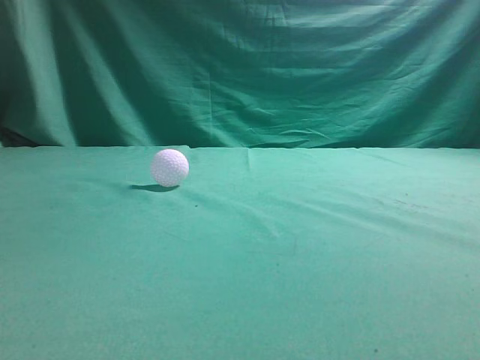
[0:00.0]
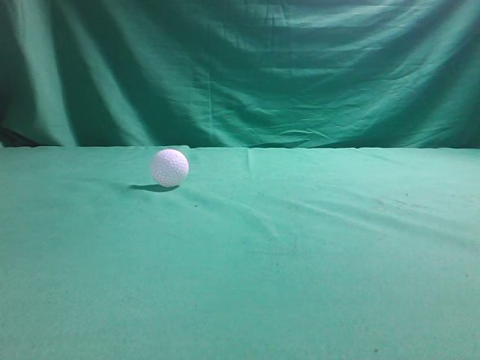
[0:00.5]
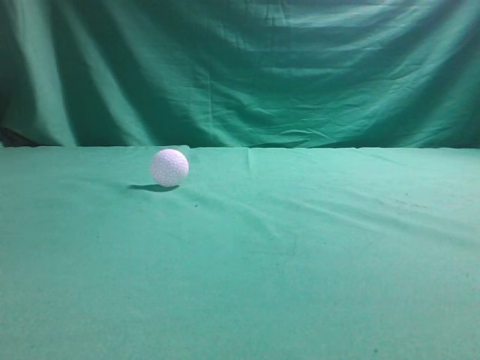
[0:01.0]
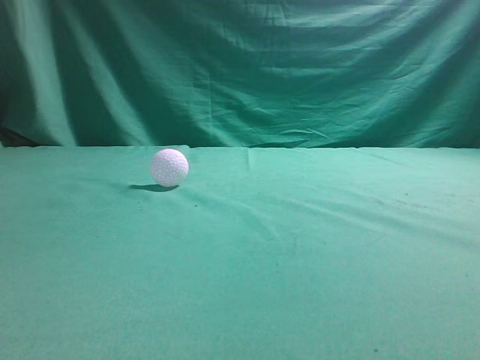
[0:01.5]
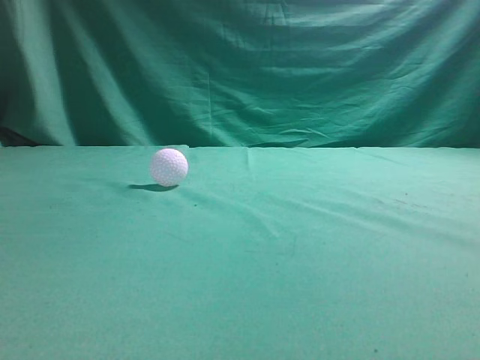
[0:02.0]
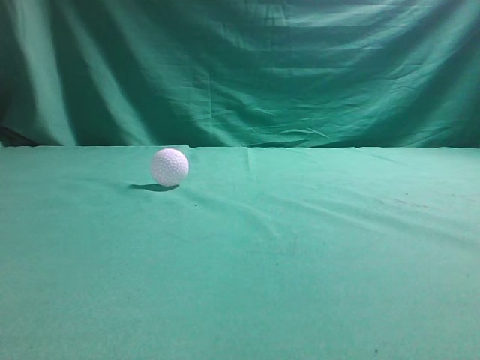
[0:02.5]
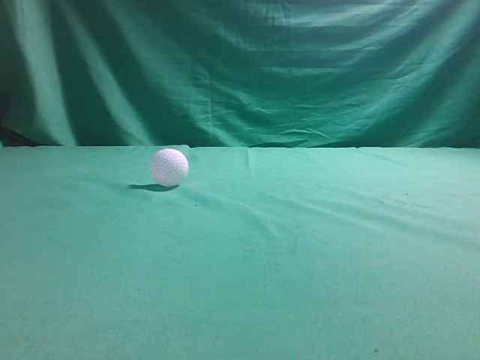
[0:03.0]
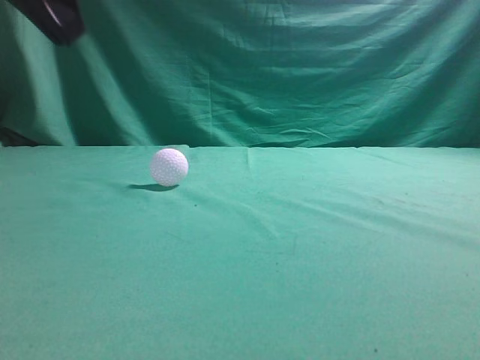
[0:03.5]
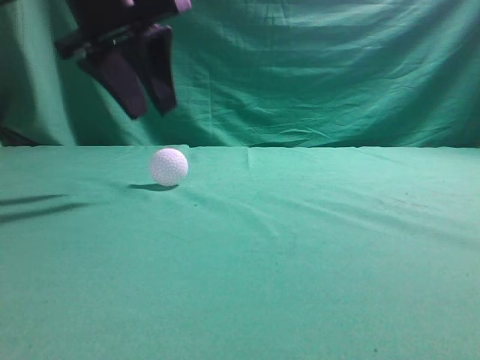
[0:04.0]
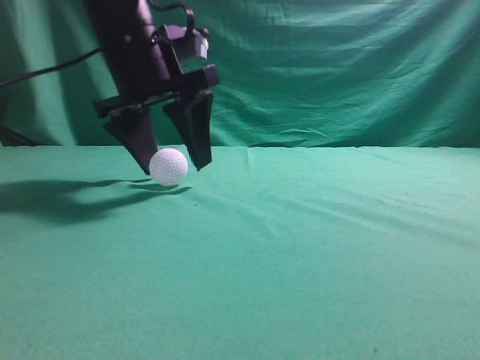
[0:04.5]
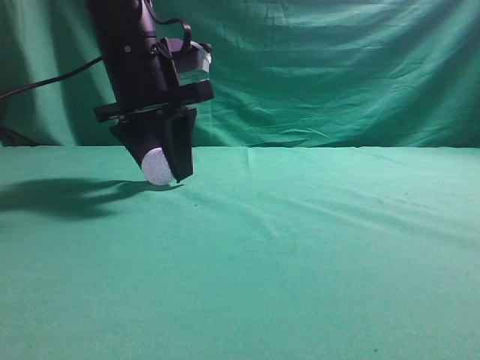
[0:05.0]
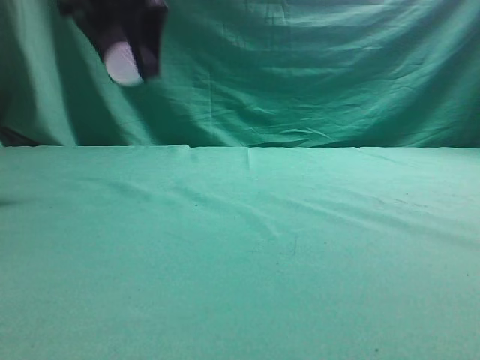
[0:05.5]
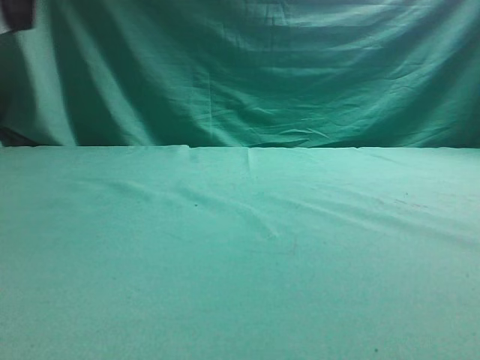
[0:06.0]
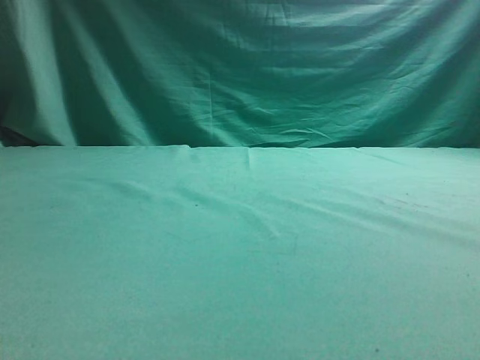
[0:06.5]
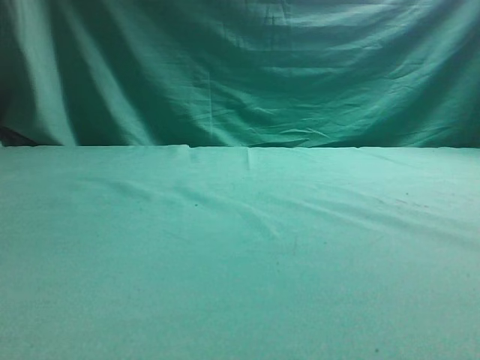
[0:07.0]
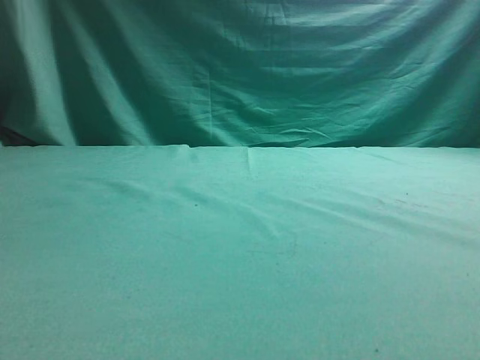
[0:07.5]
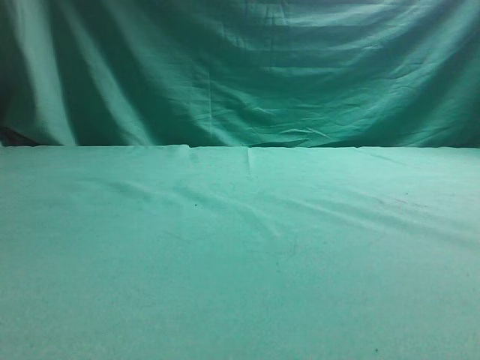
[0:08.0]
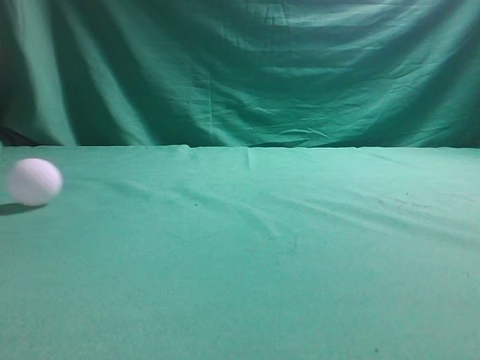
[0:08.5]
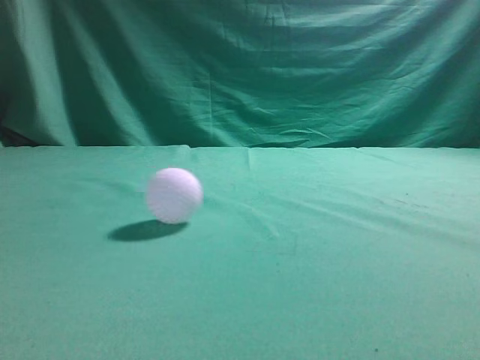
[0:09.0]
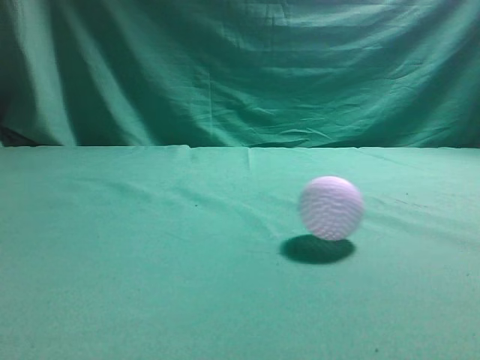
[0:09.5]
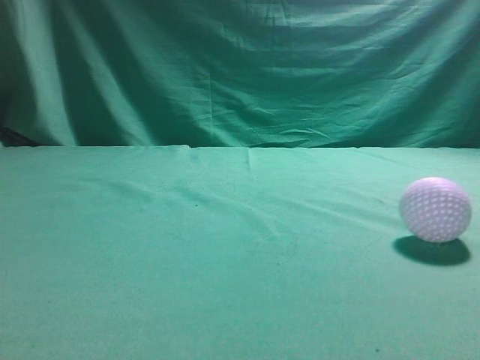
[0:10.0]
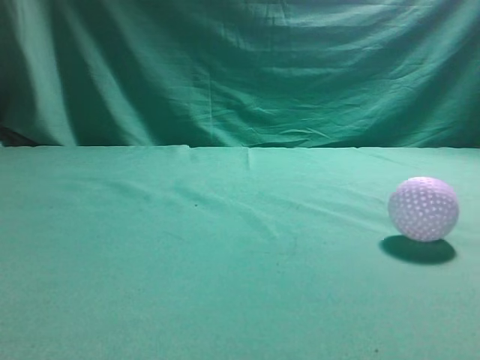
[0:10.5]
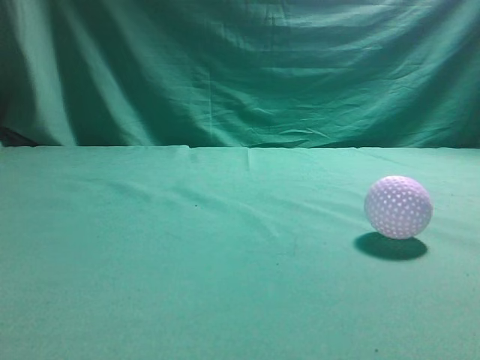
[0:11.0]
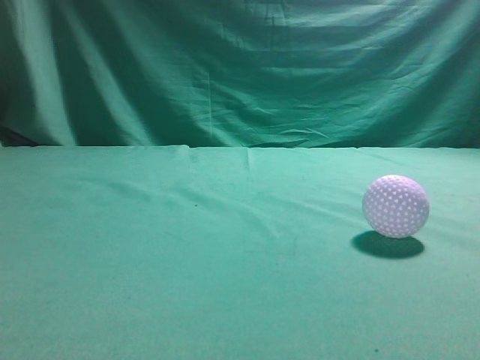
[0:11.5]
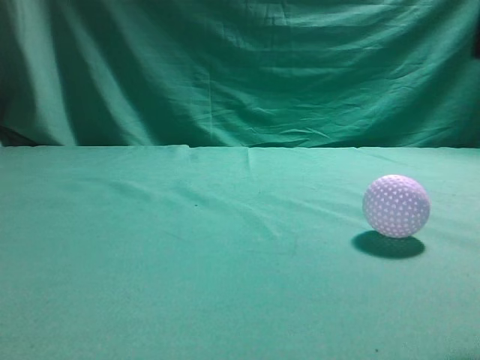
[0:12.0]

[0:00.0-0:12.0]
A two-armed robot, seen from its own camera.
Task of the whole recording: pick up the ball and place it on the plate, then pick up the ball from the plate and put it in the center of the table.
Step, 0:00.0 to 0:05.0: Grab the spherical object with your left arm.
Step, 0:05.5 to 0:07.5: Place the sphere on the white object.
0:02.0 to 0:04.0: The left gripper travels forward and to the right by roughly 35 cm.
0:04.0 to 0:06.0: The left gripper shifts some 10 cm upward and to the left, and opens, then closes once more.
0:10.0 to 0:12.0: The right gripper moves to the left and forward, some 15 cm.

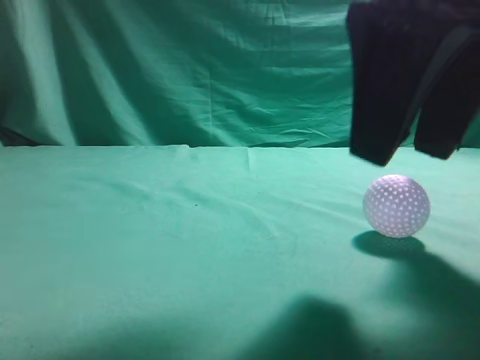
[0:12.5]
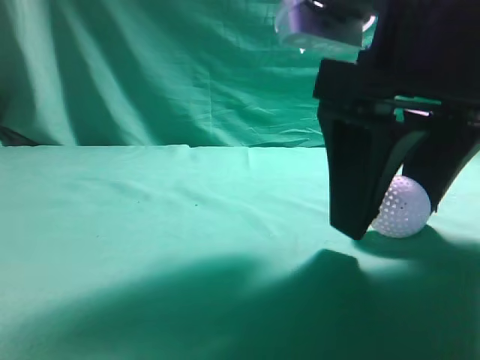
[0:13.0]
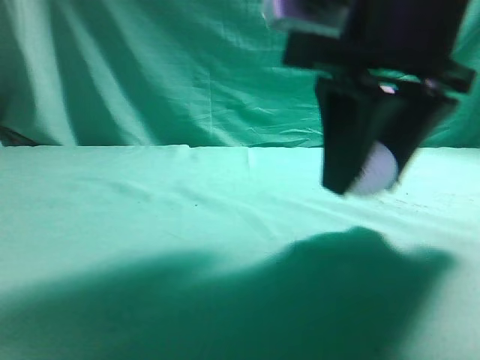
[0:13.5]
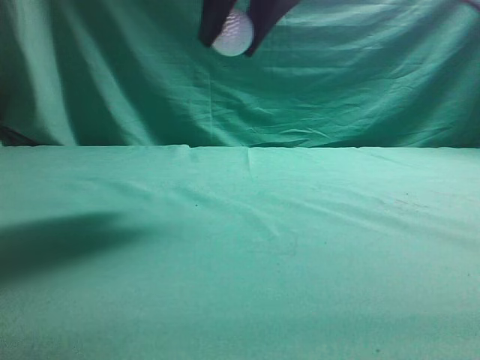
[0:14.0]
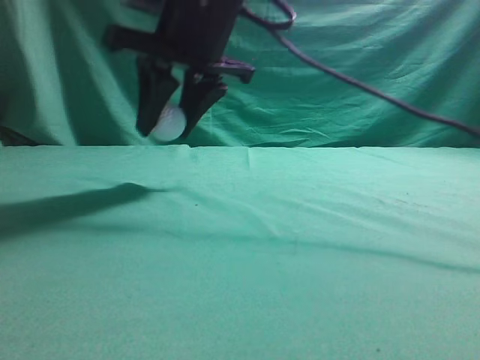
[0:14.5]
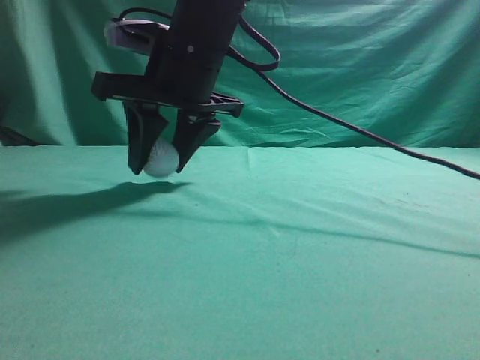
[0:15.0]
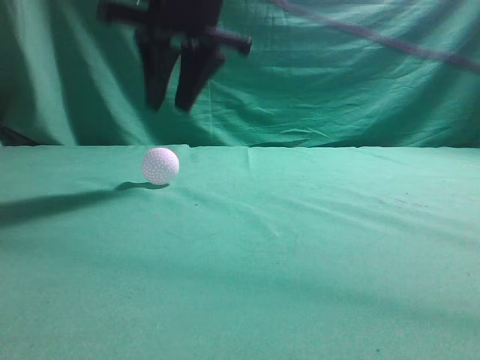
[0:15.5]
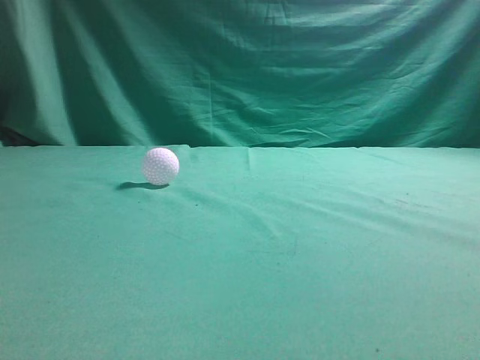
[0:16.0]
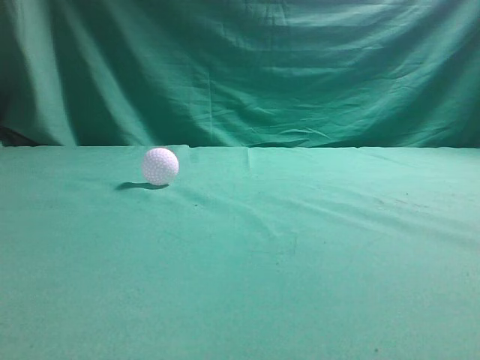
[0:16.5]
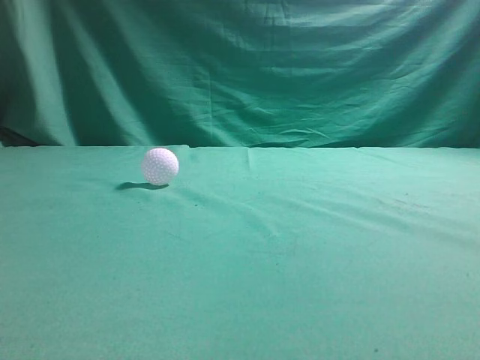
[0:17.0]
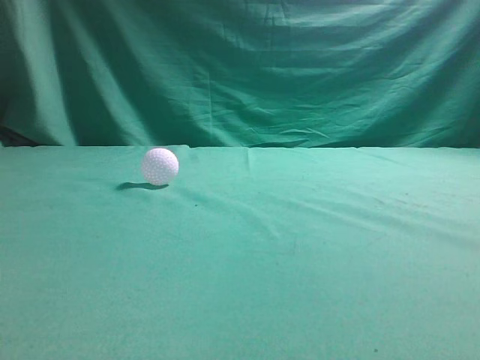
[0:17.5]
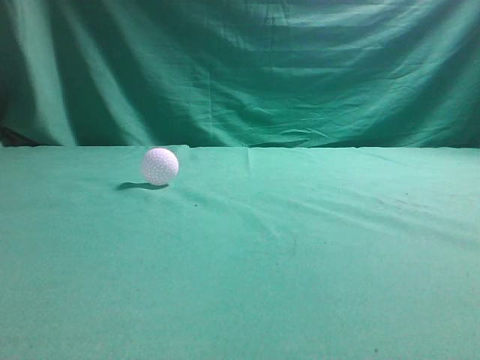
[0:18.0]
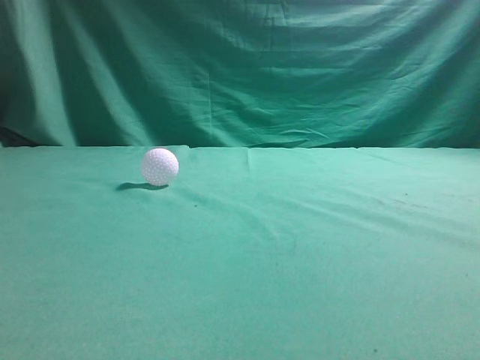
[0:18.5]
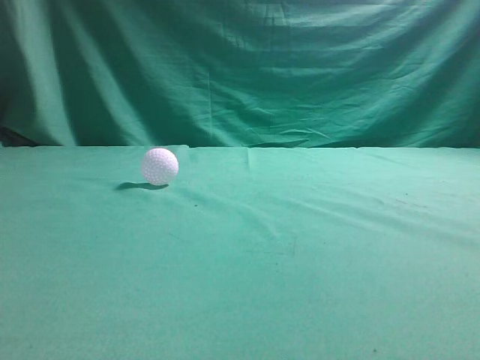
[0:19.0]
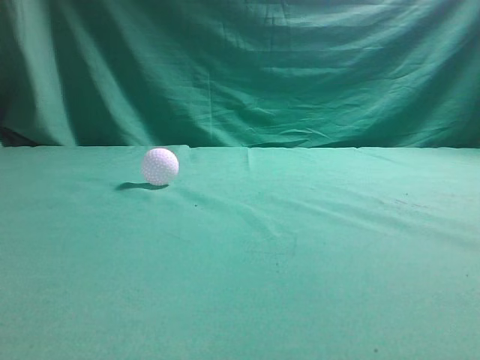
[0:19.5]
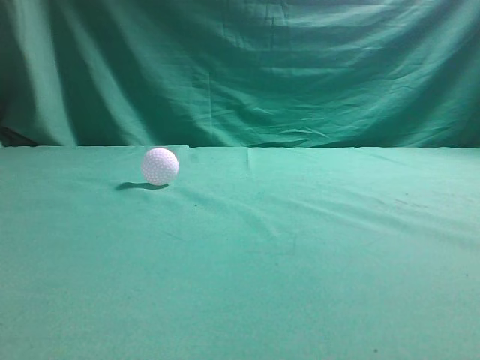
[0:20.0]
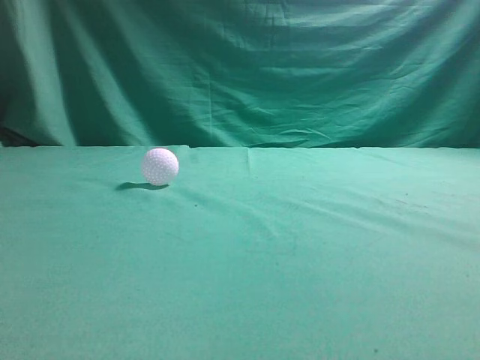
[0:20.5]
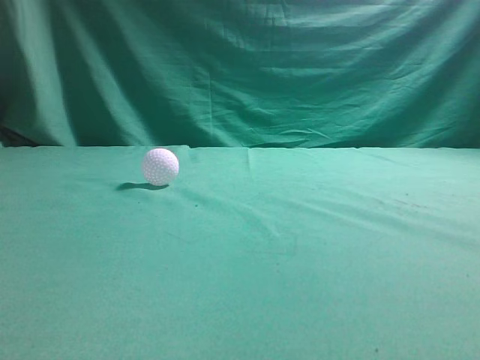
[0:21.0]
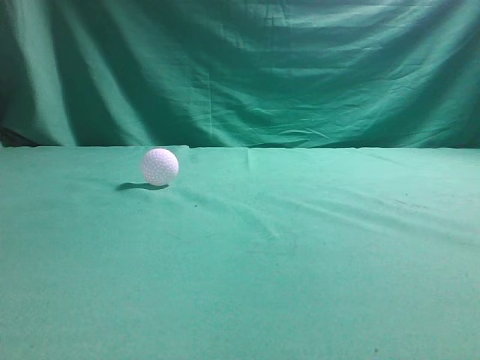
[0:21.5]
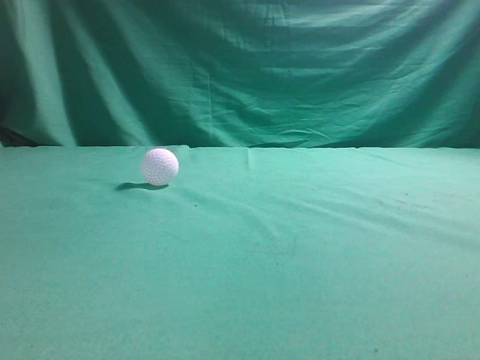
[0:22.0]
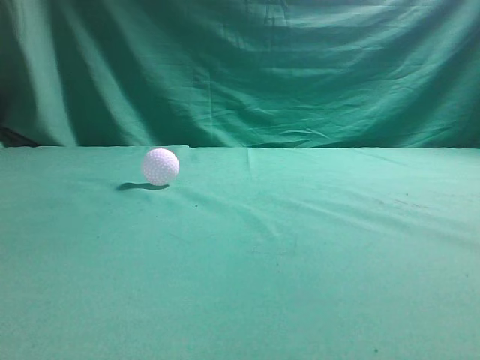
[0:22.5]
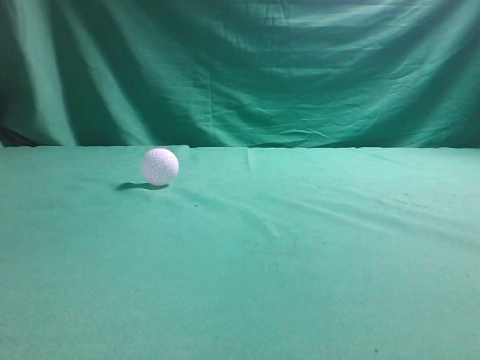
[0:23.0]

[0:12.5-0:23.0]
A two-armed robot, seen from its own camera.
Task of the whole recording: pick up the ball and place it on the plate, then pick up the ball from the plate and put it in the center of the table.
Step, 0:14.0 to 0:15.0: Put the picked-up object on the table.
0:12.5 to 0:14.5: The right gripper is displaced forward and to the left by some 20 cm.
0:14.5 to 0:16.5: The right gripper heads upward, backward and to the right, covering some 30 cm, and closes its fingers.
